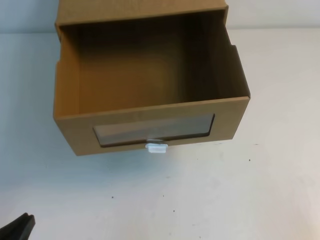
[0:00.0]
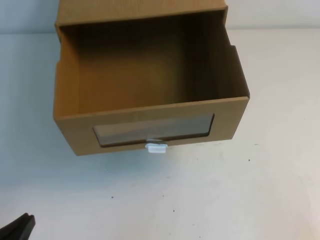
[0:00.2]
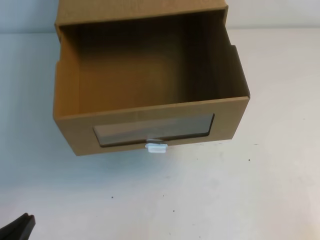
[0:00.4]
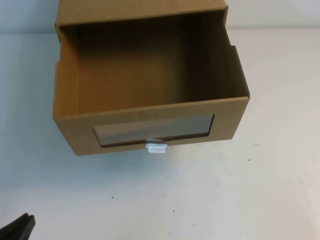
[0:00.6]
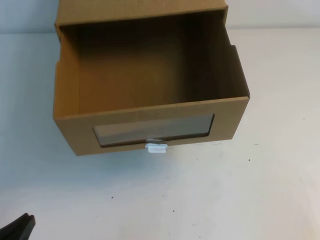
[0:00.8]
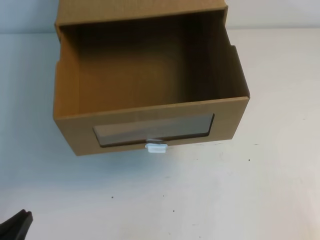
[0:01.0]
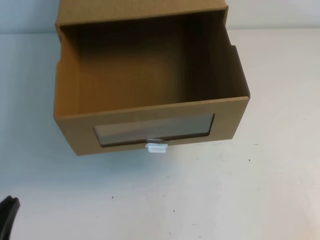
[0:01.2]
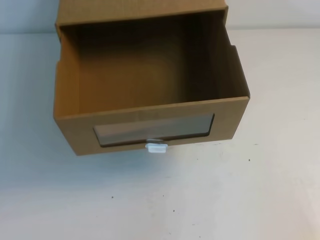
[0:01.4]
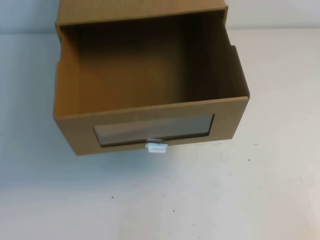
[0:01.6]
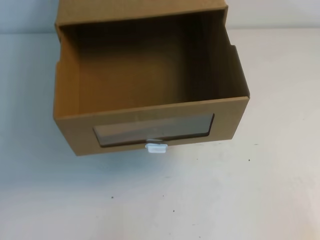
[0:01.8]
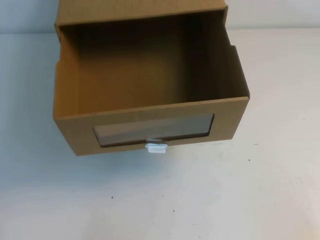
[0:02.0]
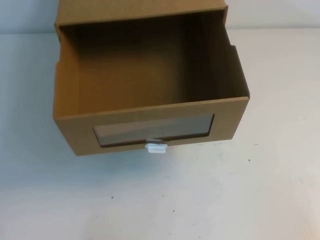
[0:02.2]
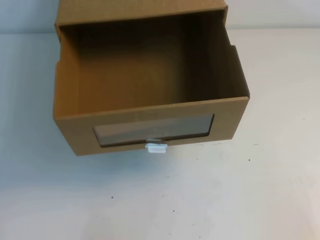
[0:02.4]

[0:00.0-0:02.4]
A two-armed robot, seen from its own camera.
Task of the whole recording: open the shoebox on the table.
Step, 0:00.0 to 0:02.4: Open the shoe box.
0:00.0 to 0:01.2: The grippers stay close to where they were, moving slightly.

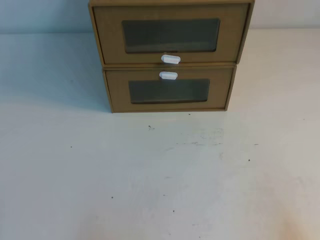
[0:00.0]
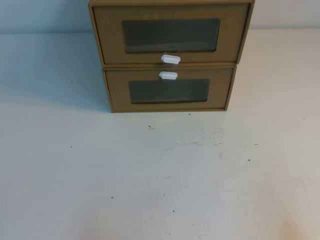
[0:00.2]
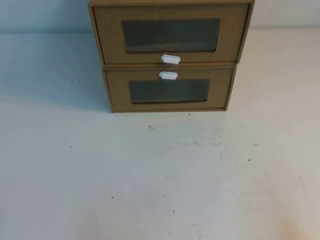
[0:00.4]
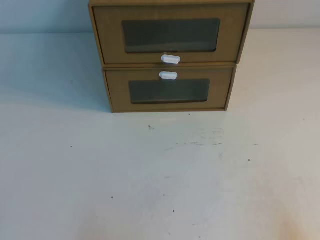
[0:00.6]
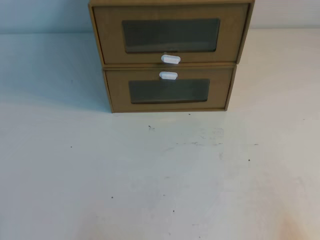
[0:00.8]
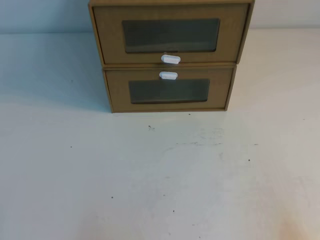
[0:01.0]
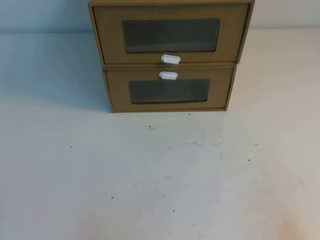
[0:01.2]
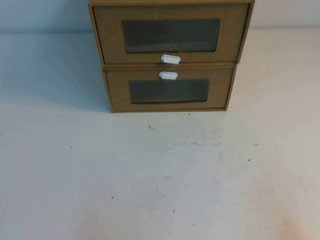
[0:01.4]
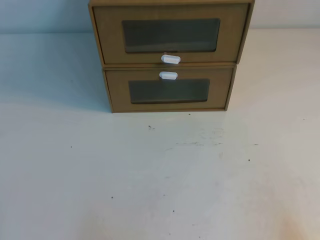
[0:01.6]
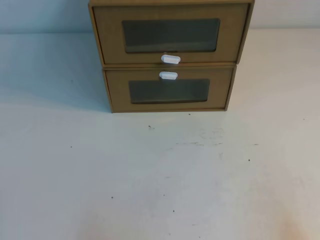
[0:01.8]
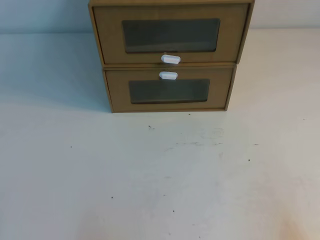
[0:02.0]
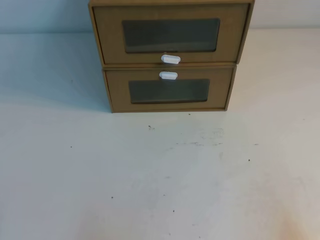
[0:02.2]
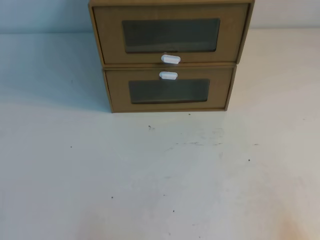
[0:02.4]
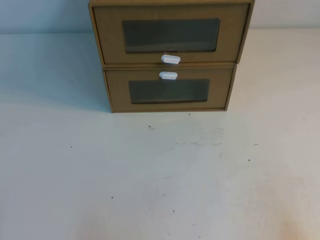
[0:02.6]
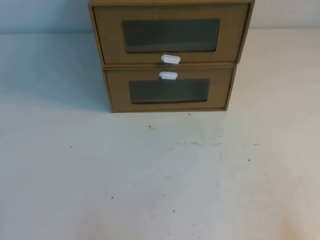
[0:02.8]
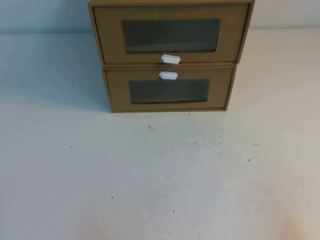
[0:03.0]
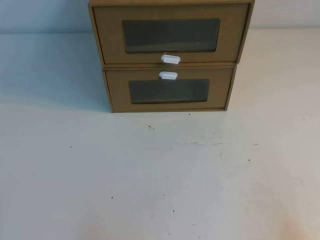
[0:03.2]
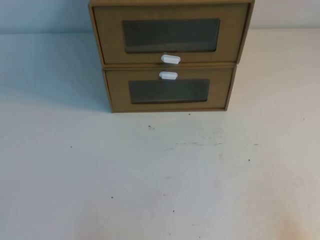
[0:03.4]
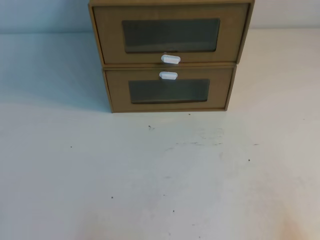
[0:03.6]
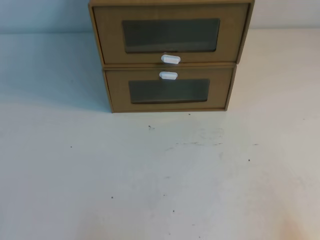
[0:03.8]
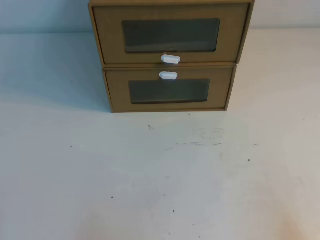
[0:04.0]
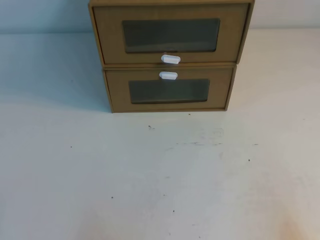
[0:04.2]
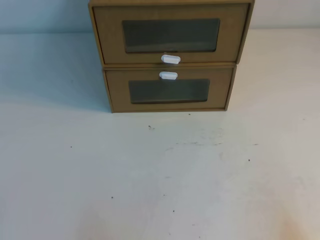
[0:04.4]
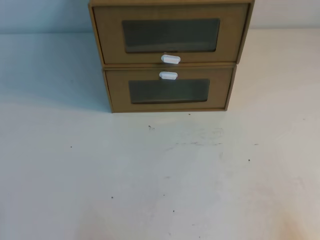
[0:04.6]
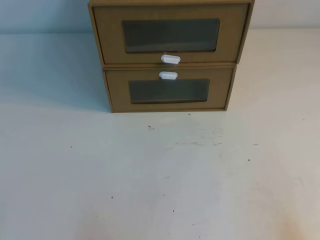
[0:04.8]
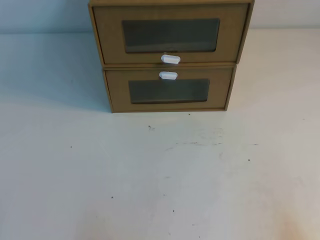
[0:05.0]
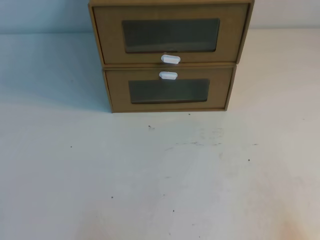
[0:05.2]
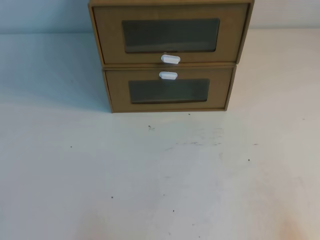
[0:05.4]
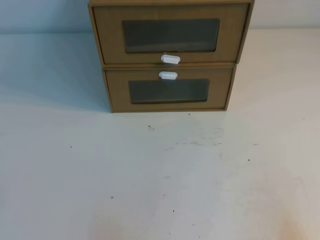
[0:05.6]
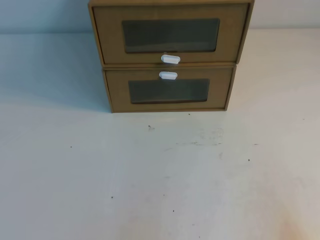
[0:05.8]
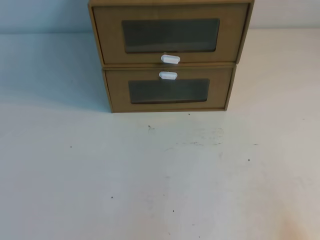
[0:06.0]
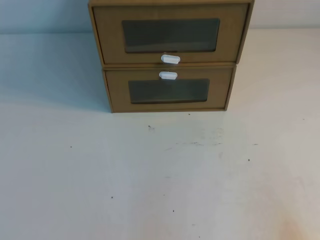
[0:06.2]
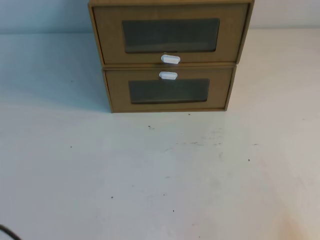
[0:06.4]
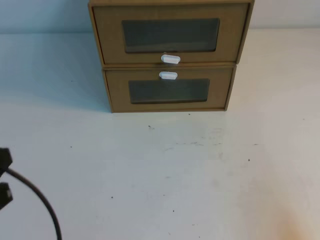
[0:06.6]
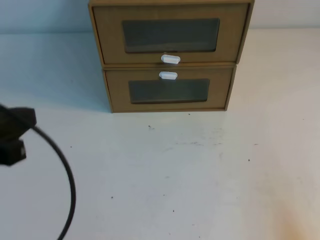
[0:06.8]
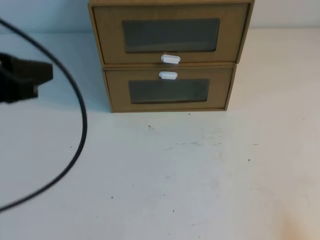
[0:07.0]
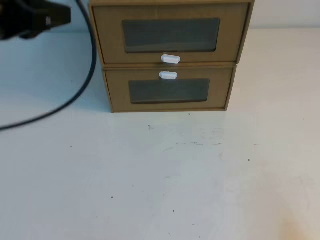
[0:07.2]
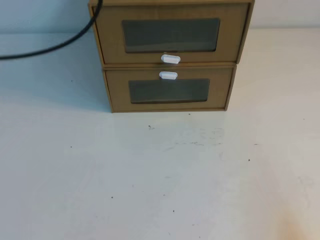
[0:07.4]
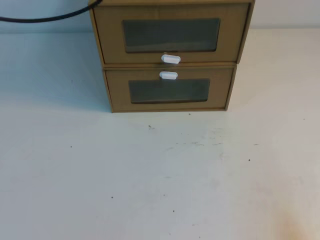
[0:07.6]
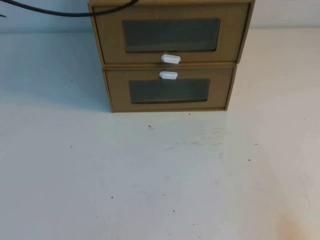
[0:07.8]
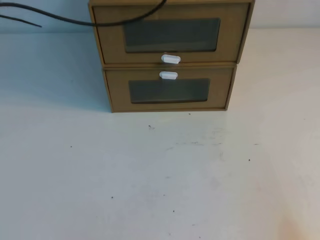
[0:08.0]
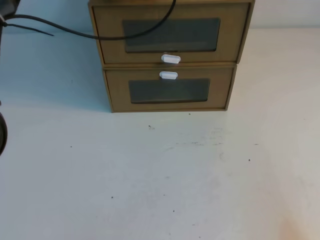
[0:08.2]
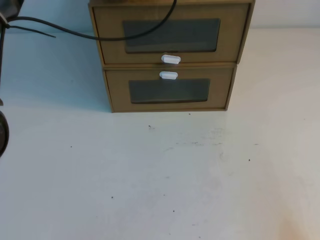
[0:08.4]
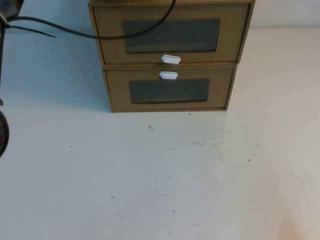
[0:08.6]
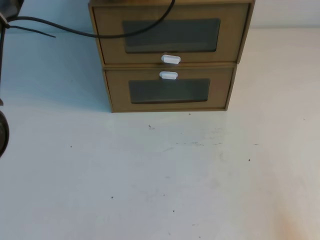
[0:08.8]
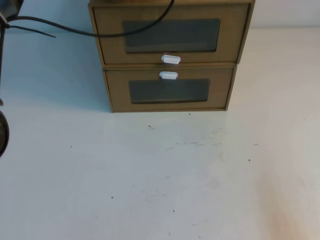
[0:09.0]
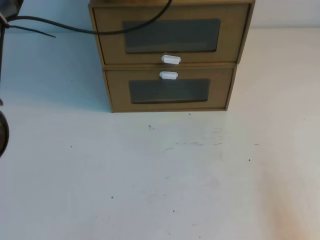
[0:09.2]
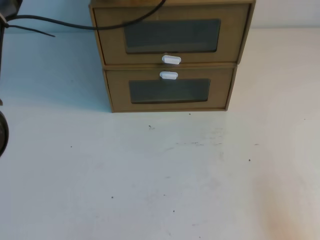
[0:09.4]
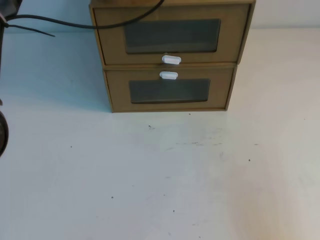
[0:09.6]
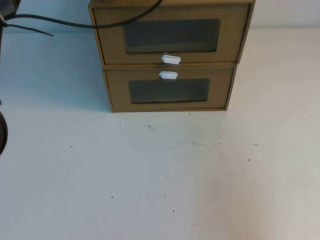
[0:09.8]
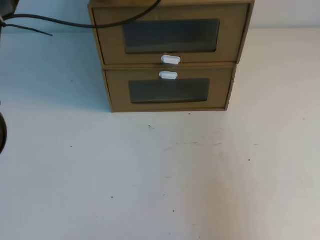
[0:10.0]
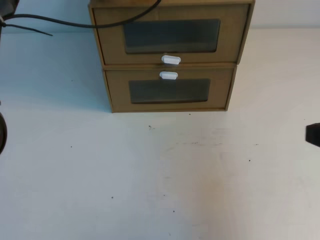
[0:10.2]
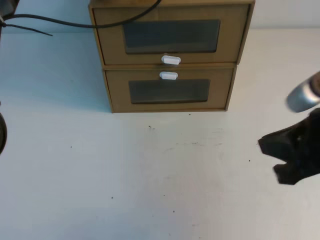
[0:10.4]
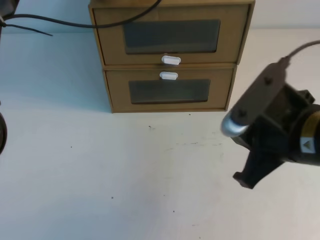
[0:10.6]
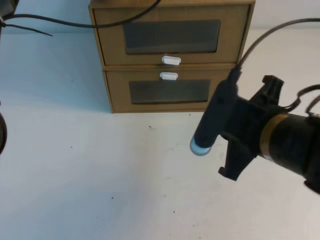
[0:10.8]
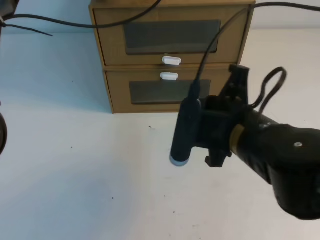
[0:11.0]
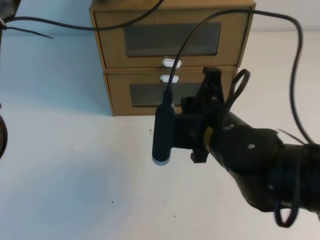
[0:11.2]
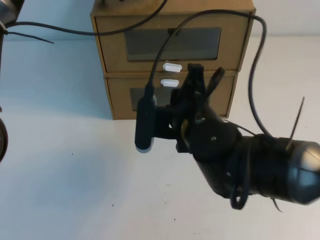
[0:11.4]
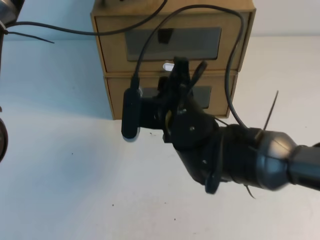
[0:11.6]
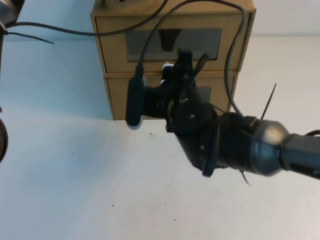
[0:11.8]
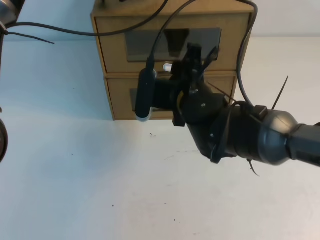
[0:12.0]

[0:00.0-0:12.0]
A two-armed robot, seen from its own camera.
Task of the whole recording: open the shoebox on the table.
0:00.0 to 0:04.4: Neither gripper changes place.
0:06.0 to 0:07.6: The left gripper moves forward and upward, roughly 40 cm.
0:07.6 to 0:09.0: The left gripper goes roughly 15 cm forward, downward and to the right.
0:09.0 to 0:10.4: The right gripper shifts about 20 cm upward, forward and to the left.
0:10.4 to 0:12.0: The right gripper travels to the left and forward by roughly 25 cm, and opens up.

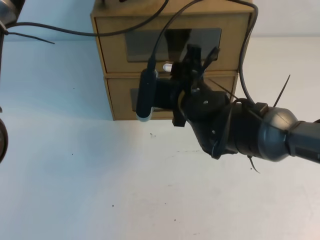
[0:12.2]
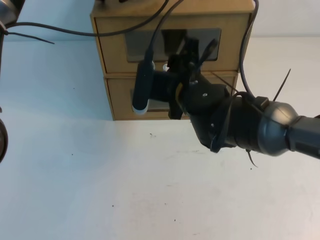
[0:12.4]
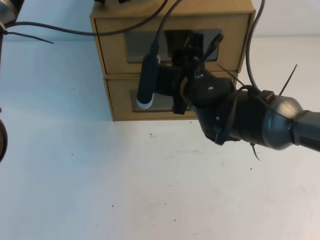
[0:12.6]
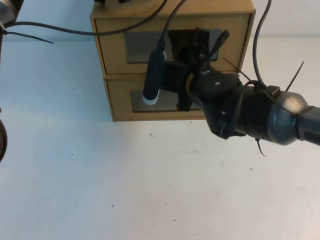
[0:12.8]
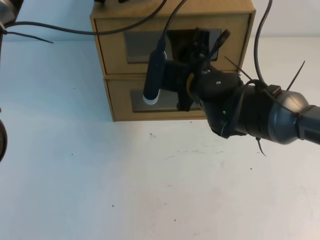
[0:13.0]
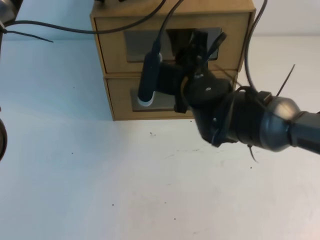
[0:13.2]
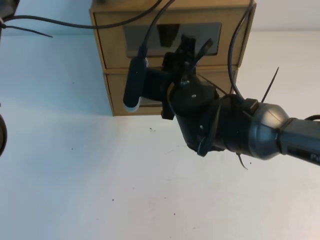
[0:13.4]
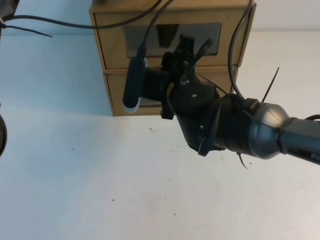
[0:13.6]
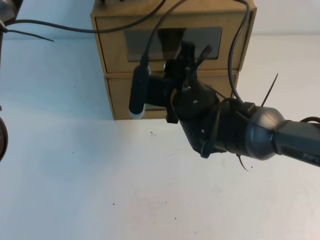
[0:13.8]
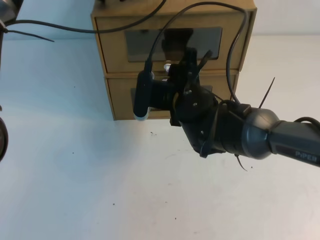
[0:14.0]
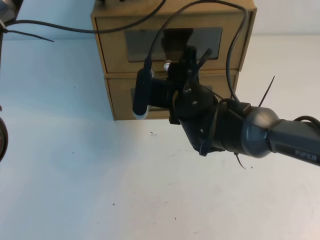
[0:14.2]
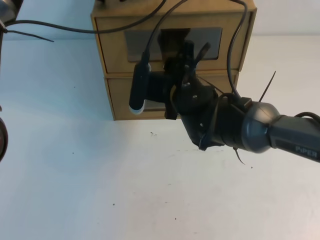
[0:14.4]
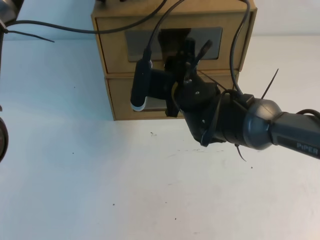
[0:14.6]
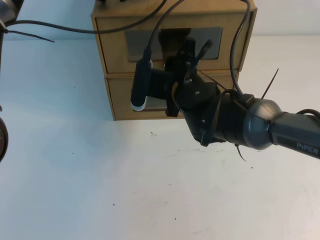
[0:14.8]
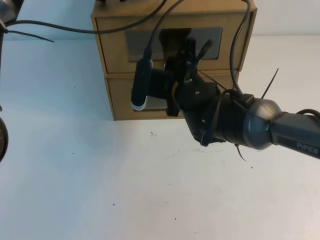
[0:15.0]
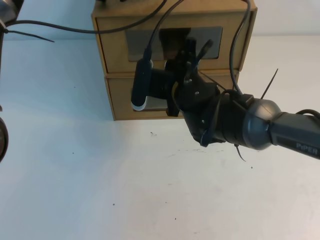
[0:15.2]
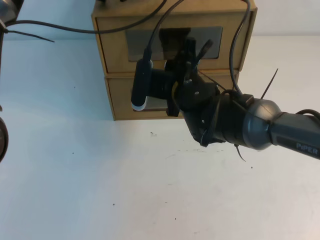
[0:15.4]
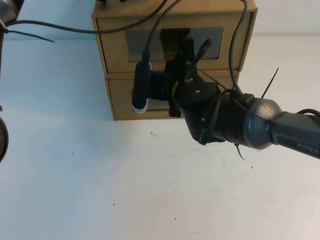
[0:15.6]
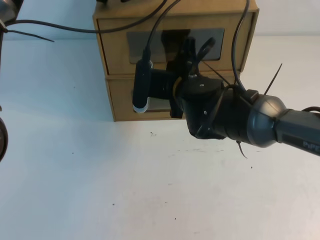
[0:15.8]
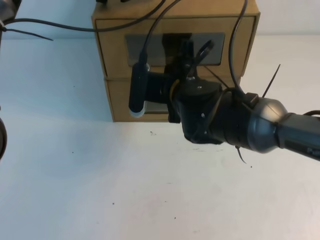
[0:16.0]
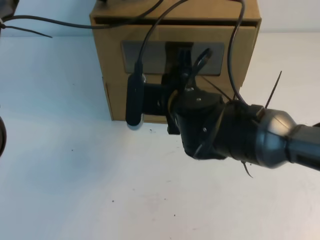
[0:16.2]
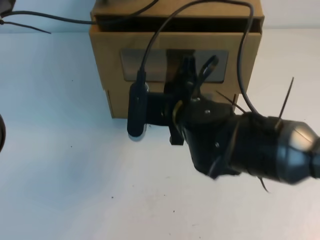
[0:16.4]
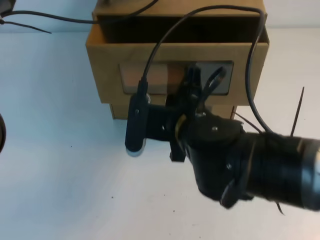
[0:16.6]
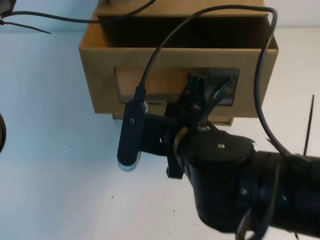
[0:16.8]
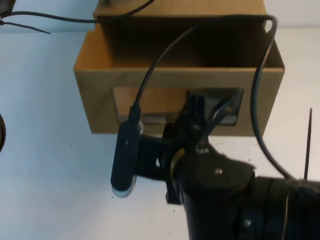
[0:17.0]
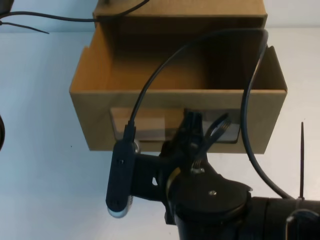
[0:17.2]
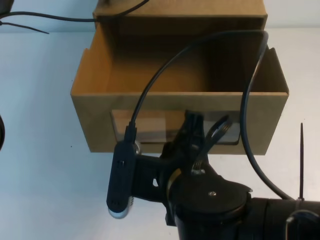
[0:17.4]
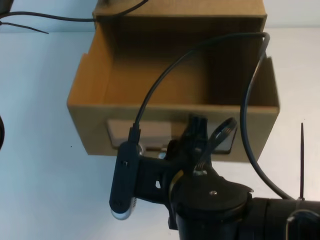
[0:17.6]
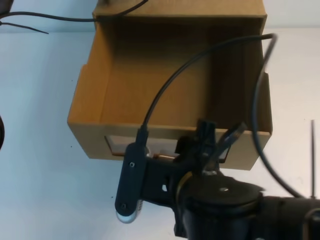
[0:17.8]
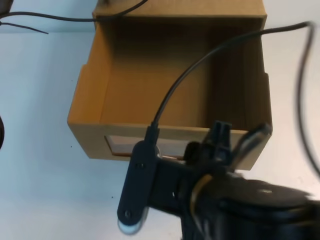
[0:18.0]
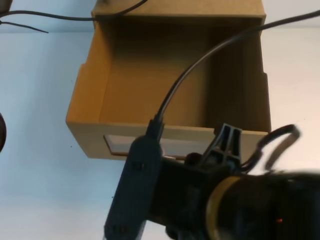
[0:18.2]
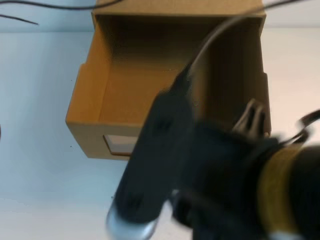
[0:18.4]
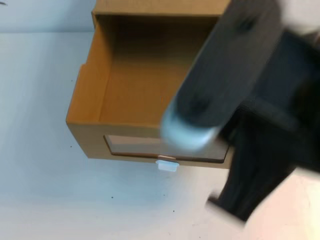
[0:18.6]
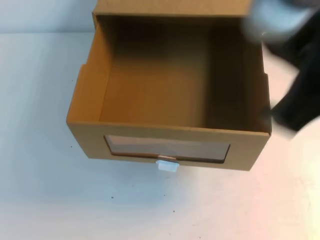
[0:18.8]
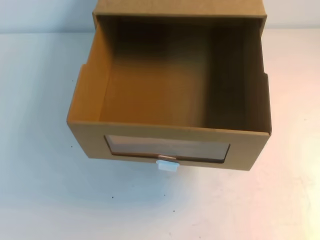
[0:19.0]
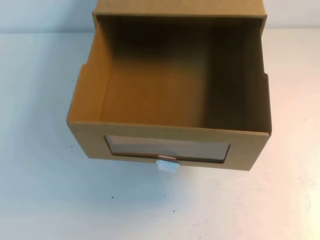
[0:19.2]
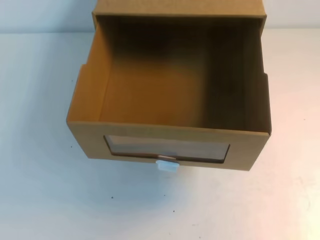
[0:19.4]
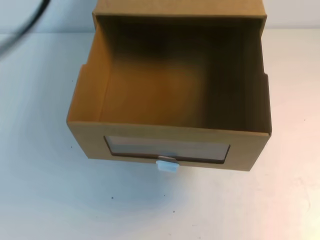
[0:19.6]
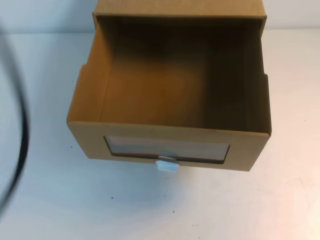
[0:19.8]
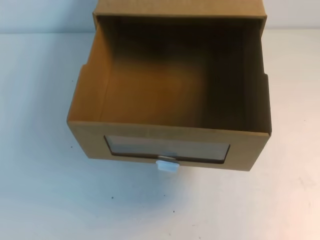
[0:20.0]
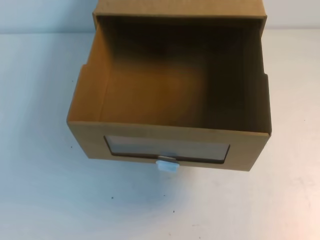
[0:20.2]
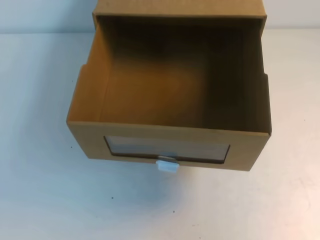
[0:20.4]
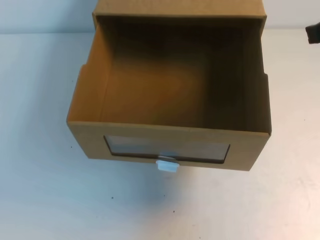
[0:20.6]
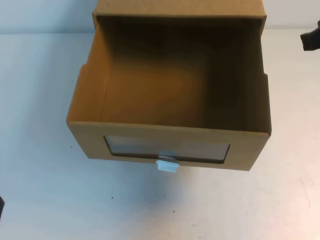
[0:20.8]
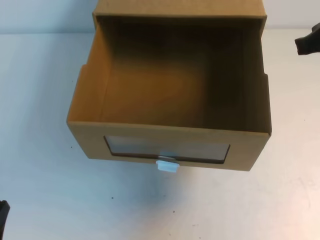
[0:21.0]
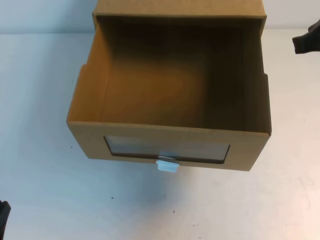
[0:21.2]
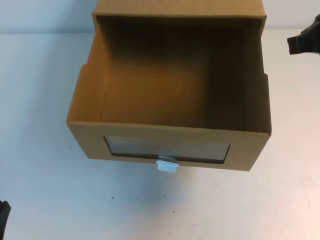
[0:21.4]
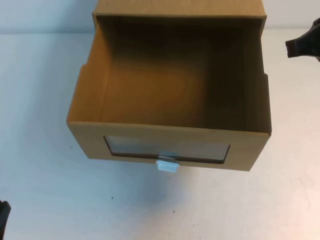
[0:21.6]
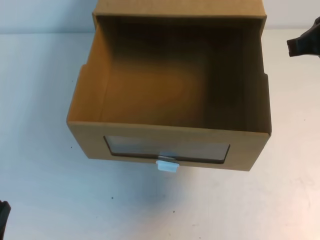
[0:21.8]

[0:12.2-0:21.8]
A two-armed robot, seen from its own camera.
Task of the whole recording: open the shoebox on the table.
0:12.2 to 0:13.8: There are only small adjustments of the grippers.
0:13.8 to 0:15.4: The right gripper closes.
0:15.4 to 0:17.0: The right gripper moves backward, approximately 20 cm.
0:17.0 to 0:18.6: The left gripper shifts roughly 10 cm upward and backward. The right gripper goes roughly 20 cm upward, backward and to the right, and opens its fingers.
0:18.6 to 0:20.2: The left gripper goes about 35 cm backward, while the right gripper travels forward and to the right by approximately 20 cm, and closes its fingers.
0:20.2 to 0:21.8: The right gripper is displaced downward by some 5 cm; the left gripper travels downward by approximately 15 cm.
